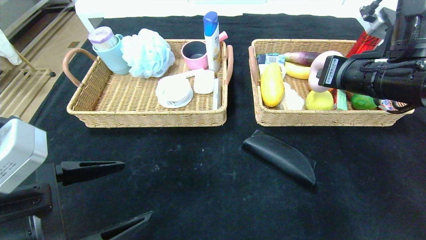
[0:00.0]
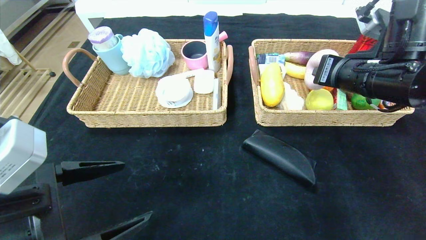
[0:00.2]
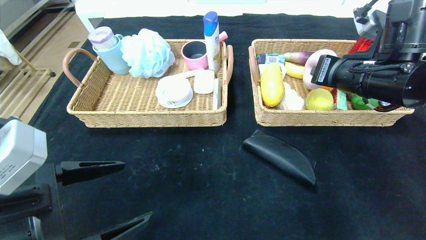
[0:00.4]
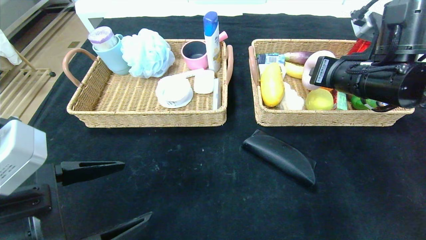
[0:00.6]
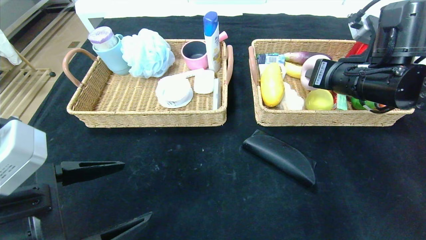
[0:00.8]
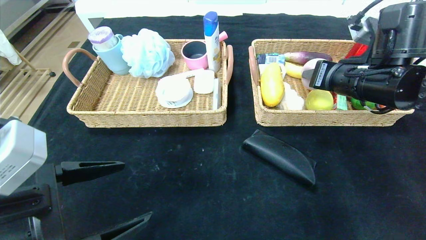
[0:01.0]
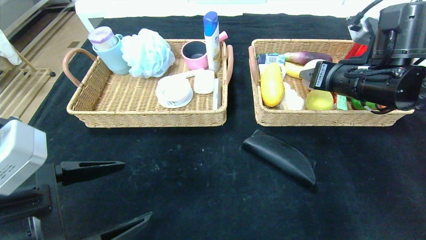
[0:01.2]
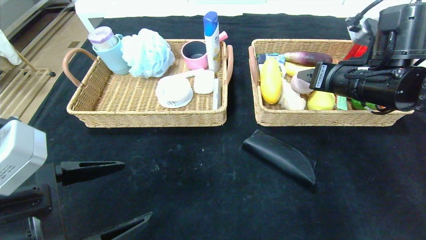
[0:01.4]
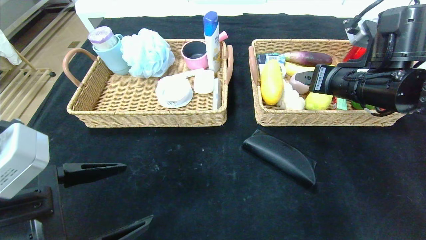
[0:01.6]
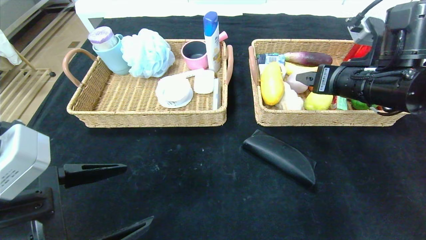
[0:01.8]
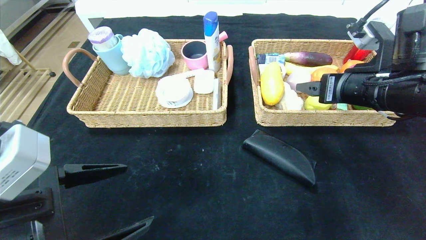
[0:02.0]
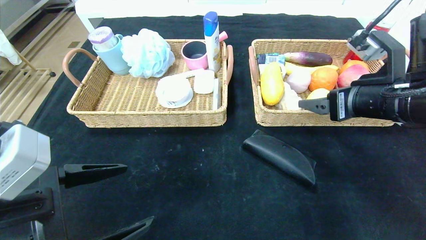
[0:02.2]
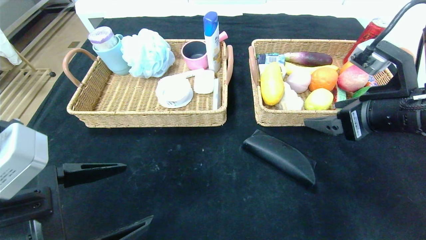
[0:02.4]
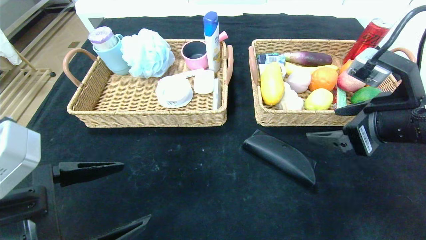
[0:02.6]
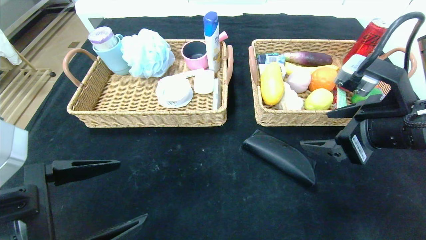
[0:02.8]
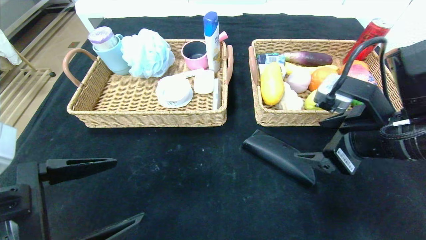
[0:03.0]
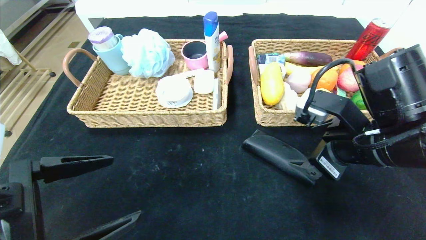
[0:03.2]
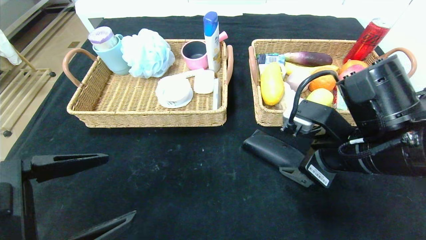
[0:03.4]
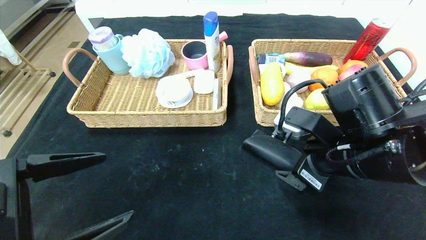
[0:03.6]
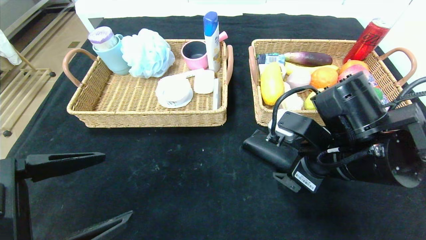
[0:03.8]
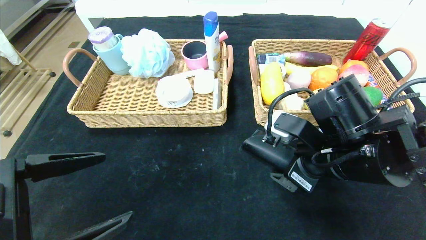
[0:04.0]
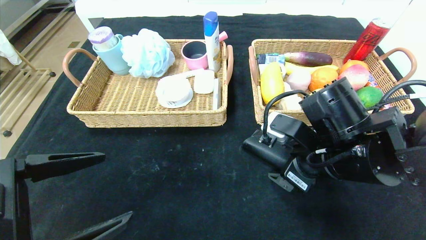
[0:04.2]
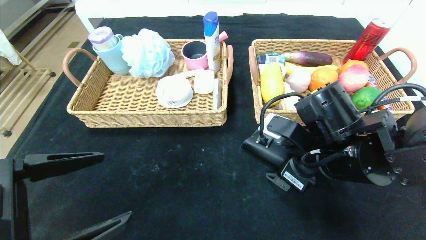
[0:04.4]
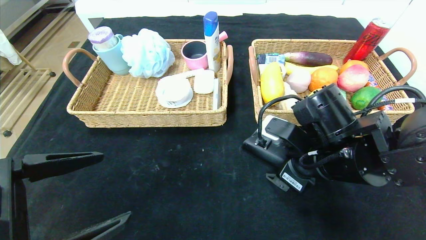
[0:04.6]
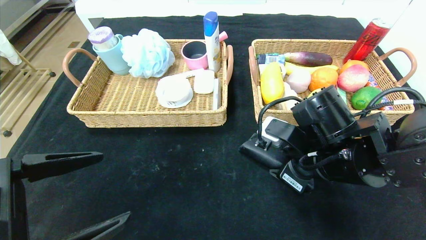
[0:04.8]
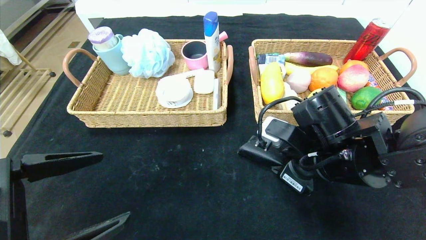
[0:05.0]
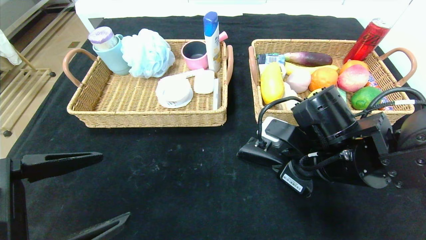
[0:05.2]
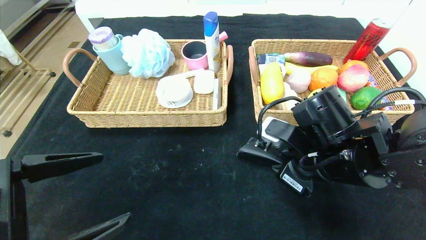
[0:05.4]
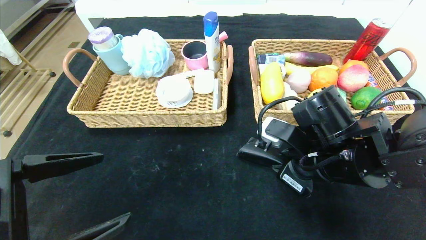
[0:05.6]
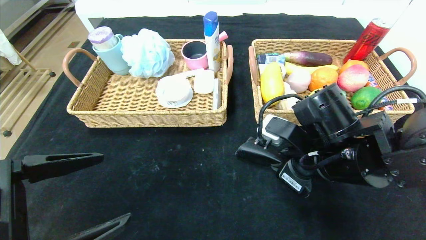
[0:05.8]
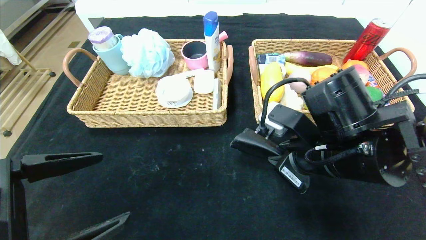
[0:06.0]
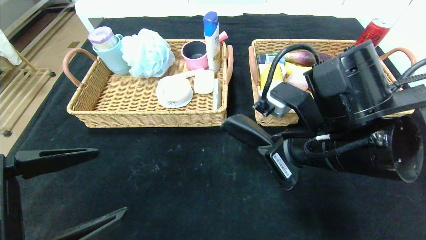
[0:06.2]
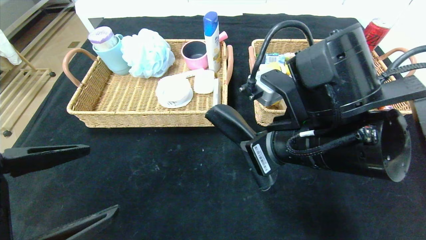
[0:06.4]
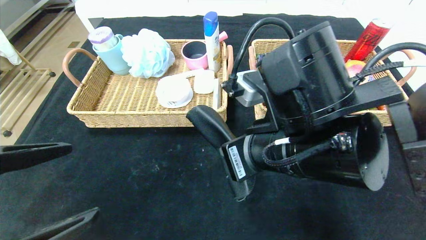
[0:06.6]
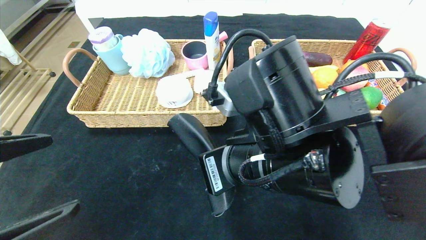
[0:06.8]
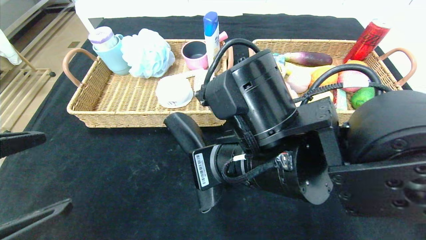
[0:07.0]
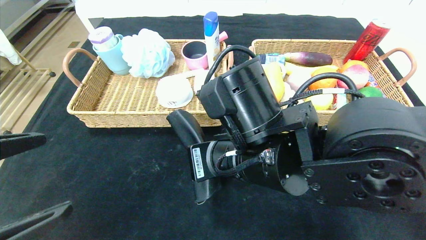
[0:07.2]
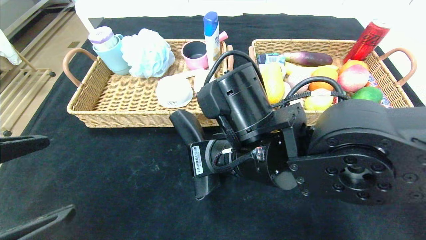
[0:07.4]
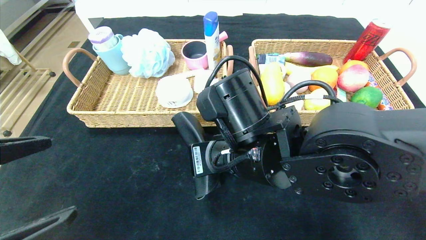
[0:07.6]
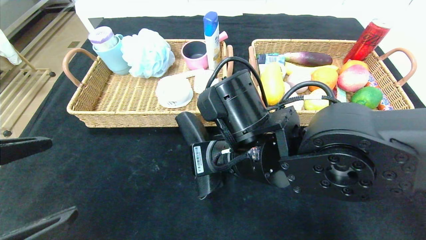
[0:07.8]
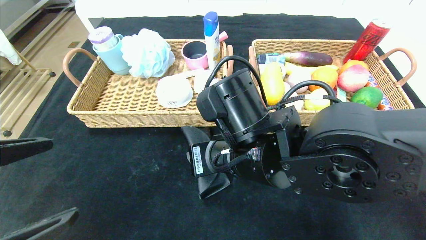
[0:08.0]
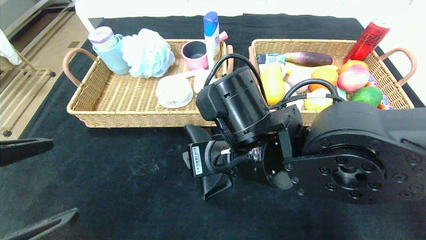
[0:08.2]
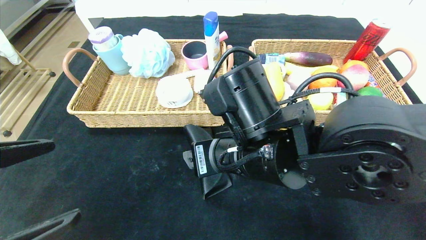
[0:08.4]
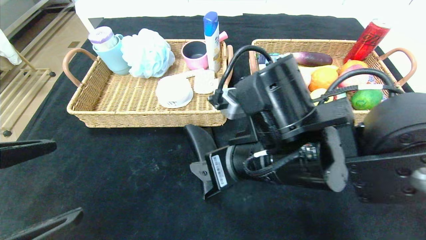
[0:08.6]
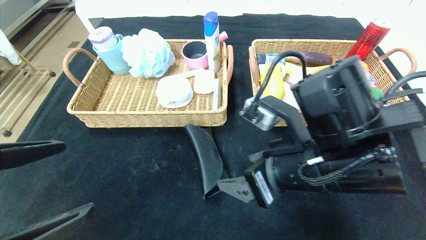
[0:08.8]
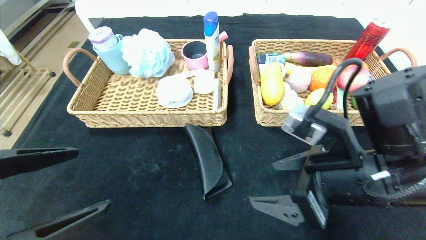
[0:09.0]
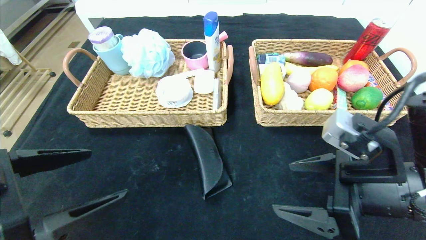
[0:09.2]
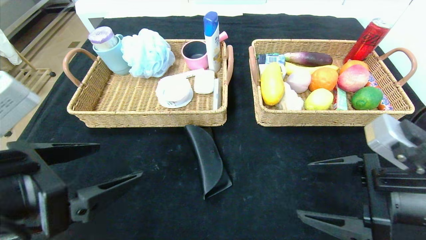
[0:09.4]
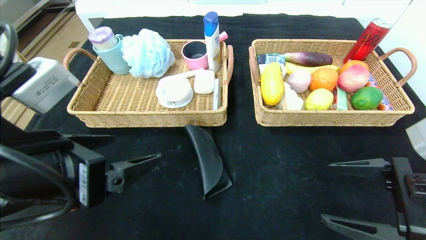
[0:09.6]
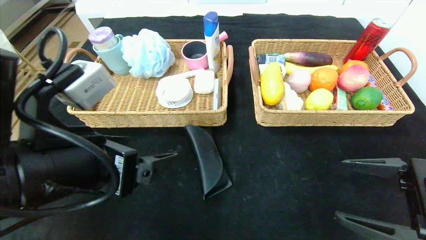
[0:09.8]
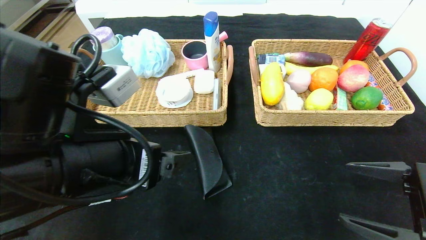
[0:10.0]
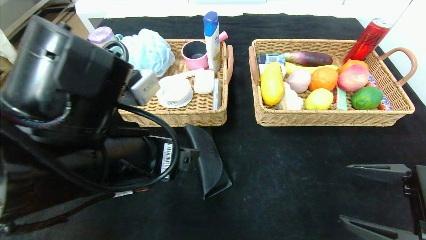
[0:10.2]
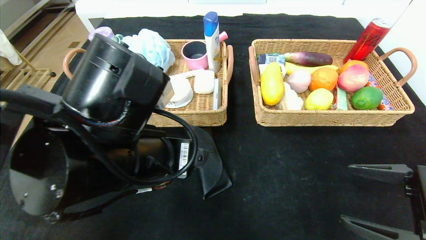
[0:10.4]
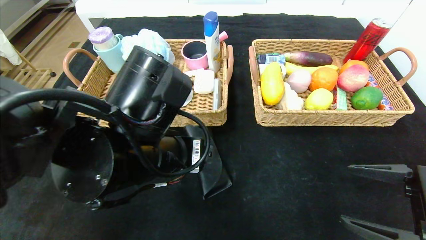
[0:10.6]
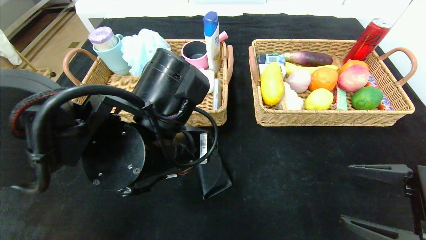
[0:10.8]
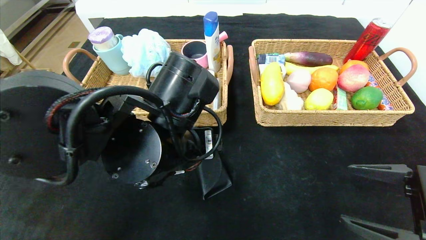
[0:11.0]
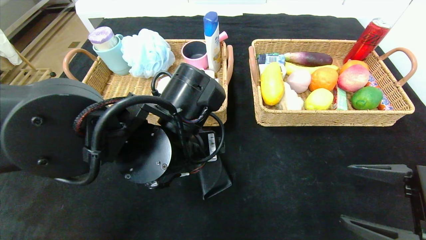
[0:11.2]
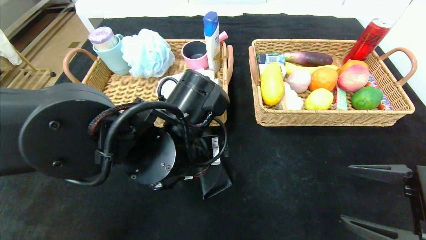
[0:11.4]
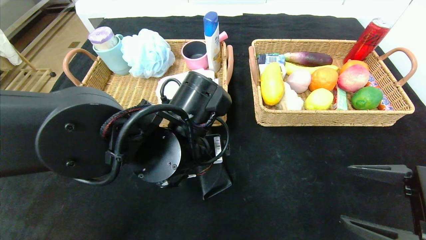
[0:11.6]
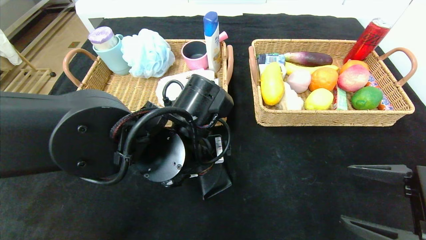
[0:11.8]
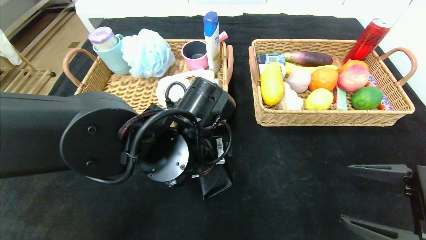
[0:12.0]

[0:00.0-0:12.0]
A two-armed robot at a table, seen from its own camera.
Step, 0:01.6 to 0:08.4: Place the glasses case in the center of the table.
0:00.0 to 0:01.6: The right gripper opens its fingers.
0:01.6 to 0:03.0: The right gripper travels backward by approximately 10 cm.
0:03.0 to 0:04.4: The right gripper shifts some 10 cm to the left and downward.
0:04.4 to 0:06.0: The right gripper closes up.
0:06.0 to 0:07.6: The right gripper heads to the left, covering approximately 10 cm.
0:07.6 to 0:09.0: The right gripper shifts approximately 15 cm to the right, and opens.
0:09.0 to 0:10.4: The left gripper travels to the right and forward by about 15 cm, while the right gripper goes approximately 15 cm to the right and backward.
0:10.4 to 0:12.0: The left gripper shifts approximately 10 cm forward and to the right.

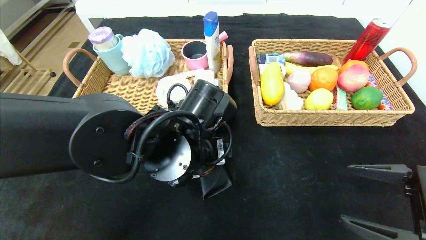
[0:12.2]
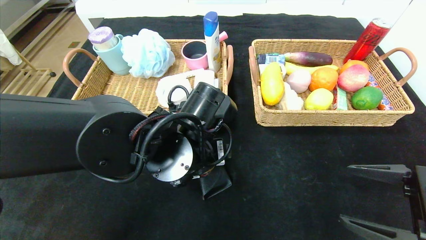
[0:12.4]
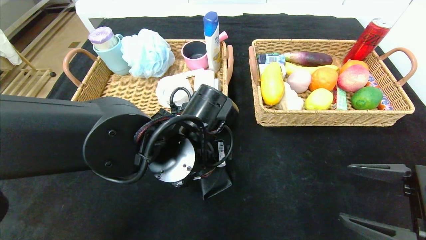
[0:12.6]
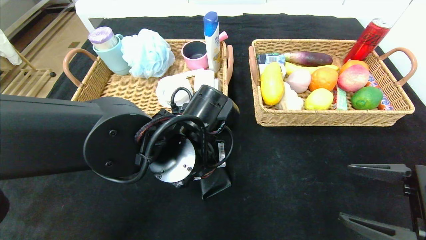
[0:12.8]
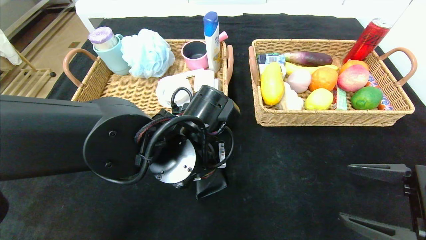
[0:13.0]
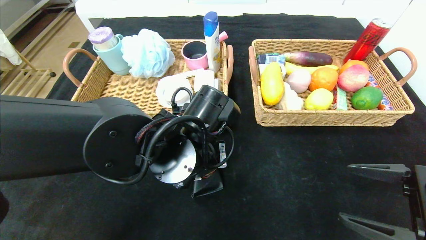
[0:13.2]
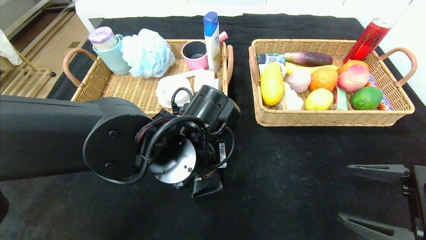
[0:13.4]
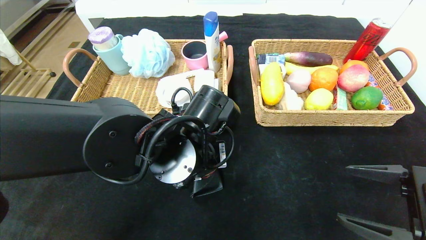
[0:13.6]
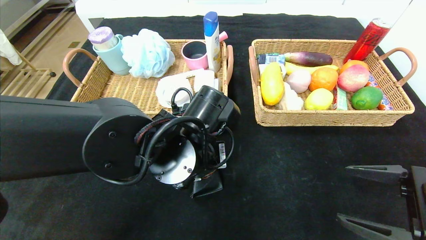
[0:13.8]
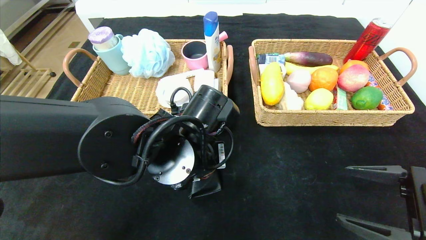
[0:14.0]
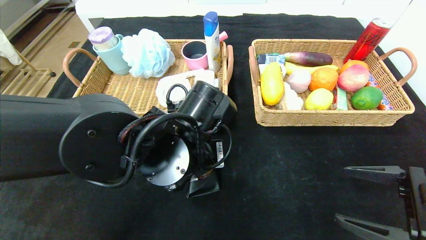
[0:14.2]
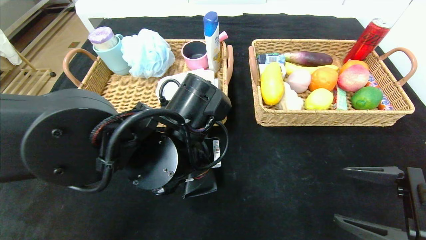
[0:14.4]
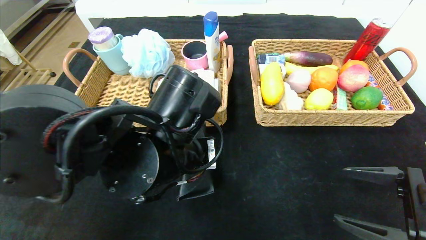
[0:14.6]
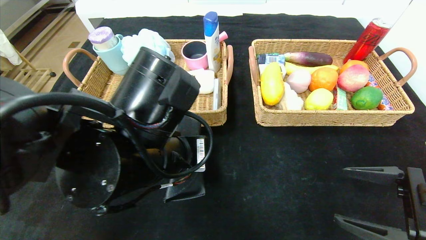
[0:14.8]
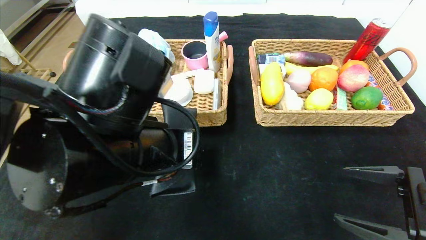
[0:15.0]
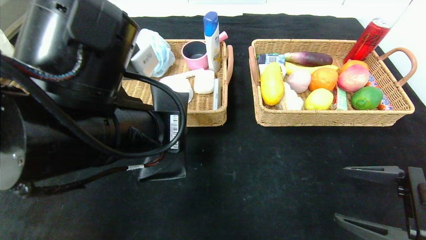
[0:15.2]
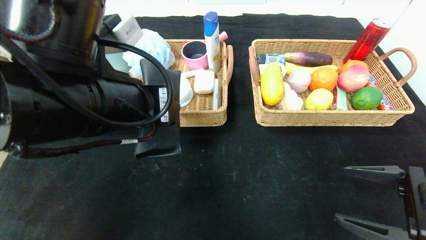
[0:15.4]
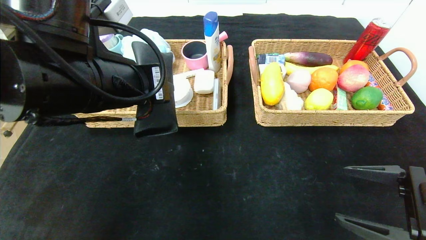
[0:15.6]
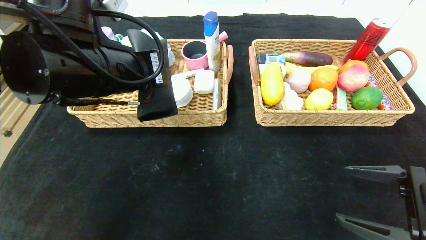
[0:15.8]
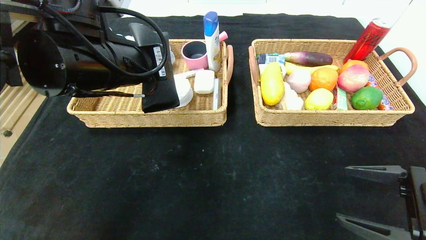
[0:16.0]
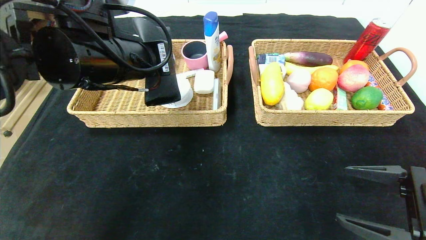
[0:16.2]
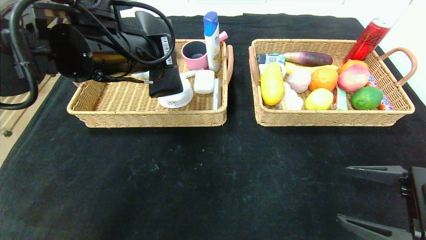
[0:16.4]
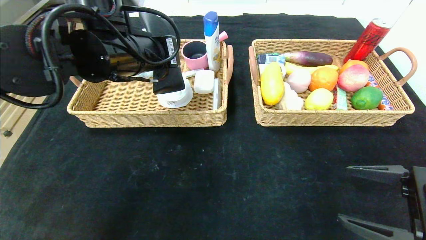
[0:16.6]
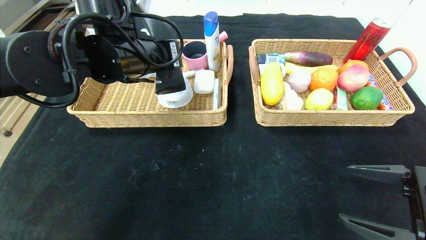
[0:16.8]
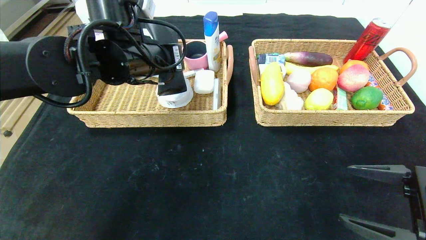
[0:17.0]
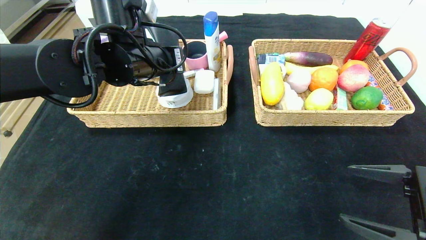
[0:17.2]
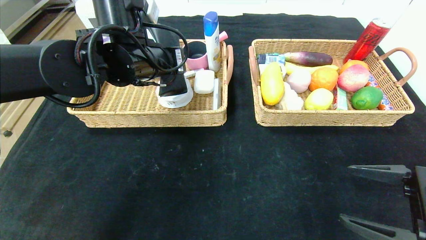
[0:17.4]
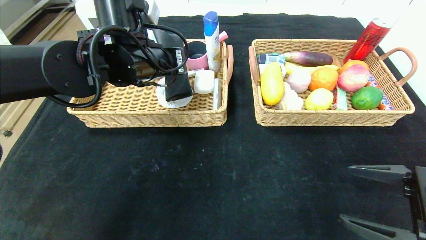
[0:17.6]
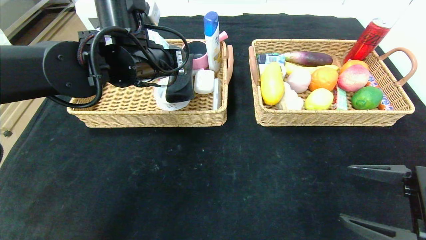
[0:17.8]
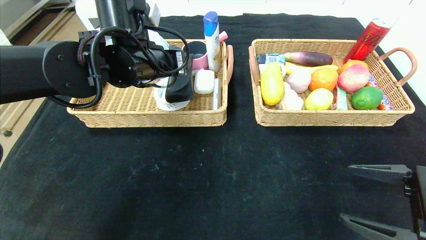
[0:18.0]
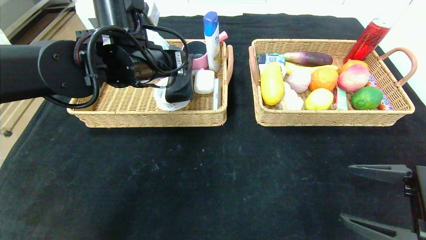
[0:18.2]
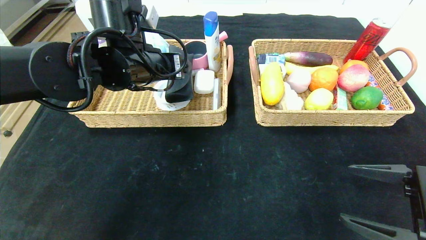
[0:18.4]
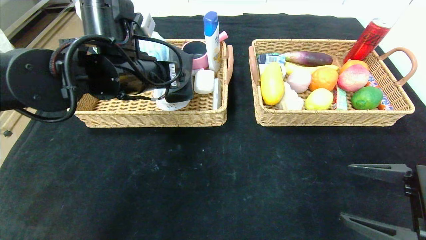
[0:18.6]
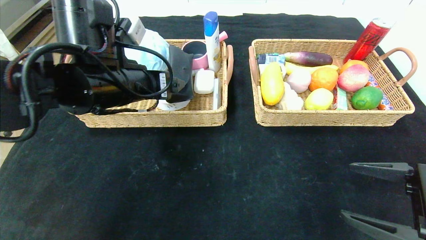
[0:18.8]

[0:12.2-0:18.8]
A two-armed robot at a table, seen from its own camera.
Step, 0:12.2 to 0:17.8: Grasp the glasses case and put it in the left basket.
0:12.2 to 0:13.8: The left gripper closes.
0:13.8 to 0:15.4: The left gripper shifts roughly 15 cm upward and to the left.
0:15.4 to 0:17.2: The left gripper heads forward, covering some 15 cm.
0:17.2 to 0:18.8: The left gripper goes approximately 5 cm backward, and opens its fingers.
